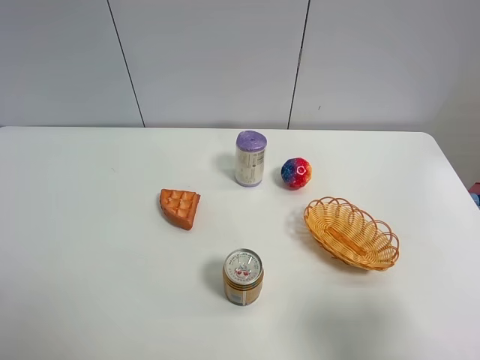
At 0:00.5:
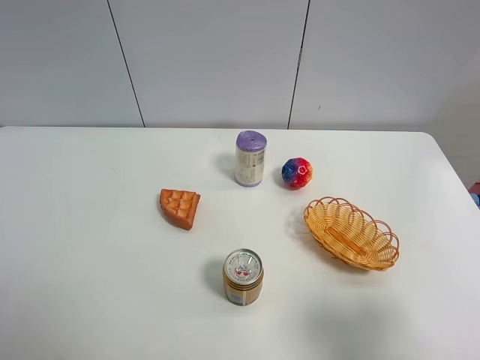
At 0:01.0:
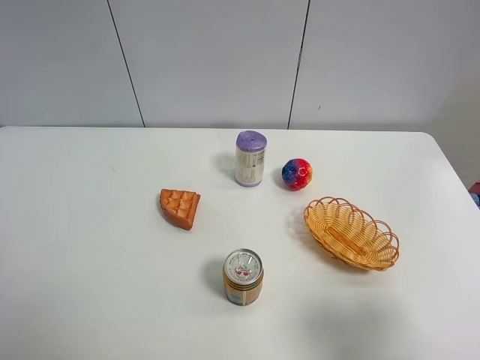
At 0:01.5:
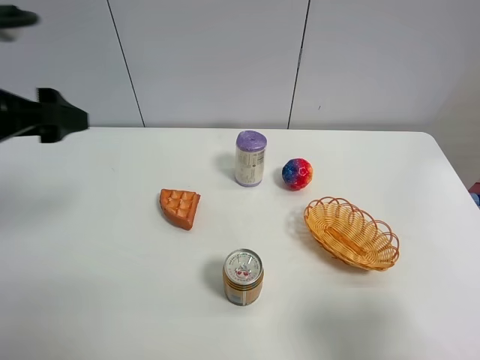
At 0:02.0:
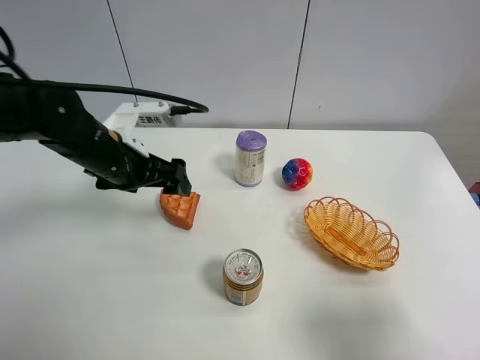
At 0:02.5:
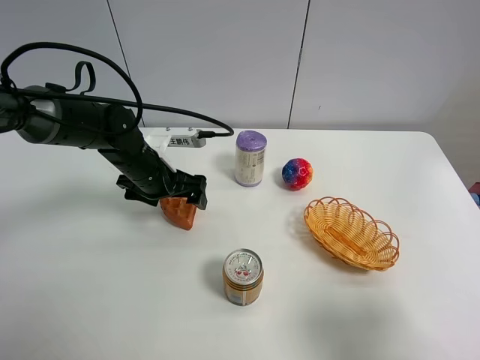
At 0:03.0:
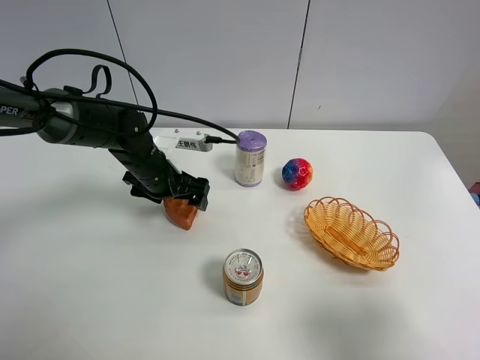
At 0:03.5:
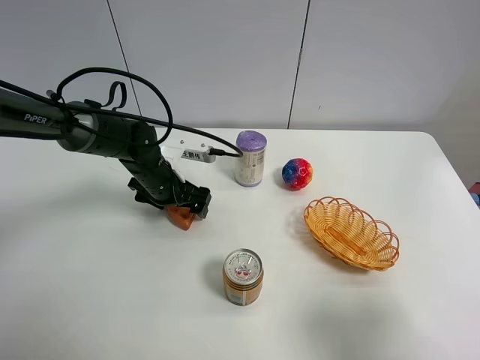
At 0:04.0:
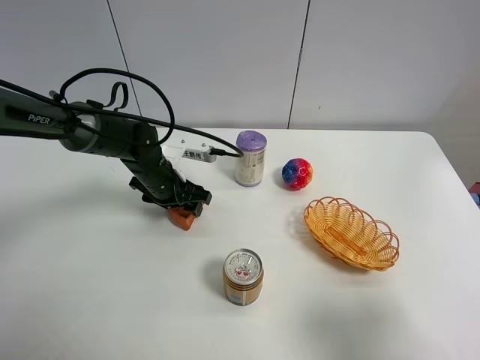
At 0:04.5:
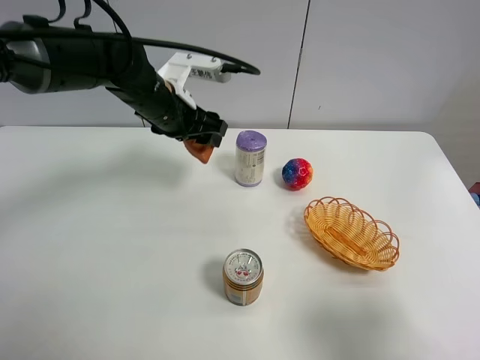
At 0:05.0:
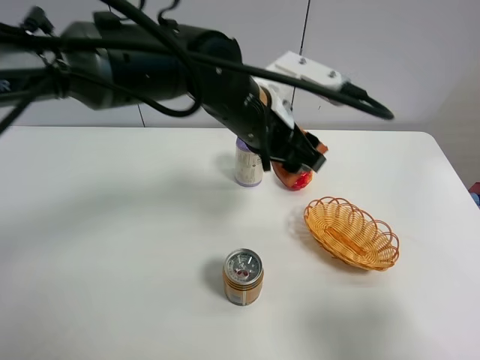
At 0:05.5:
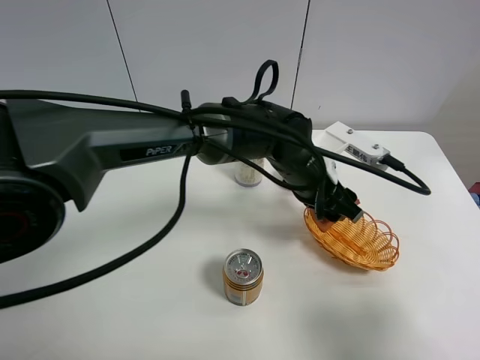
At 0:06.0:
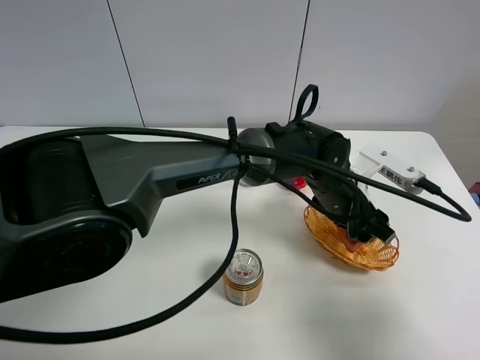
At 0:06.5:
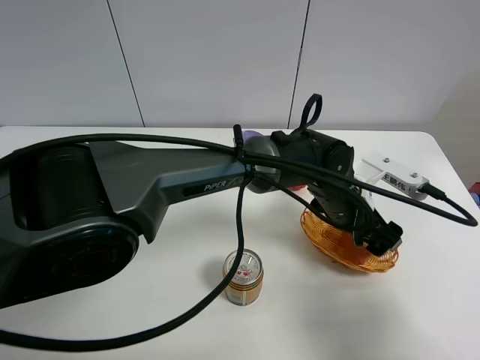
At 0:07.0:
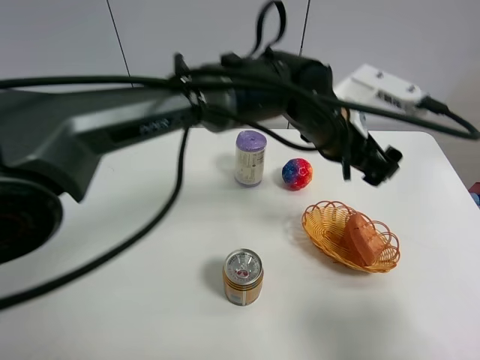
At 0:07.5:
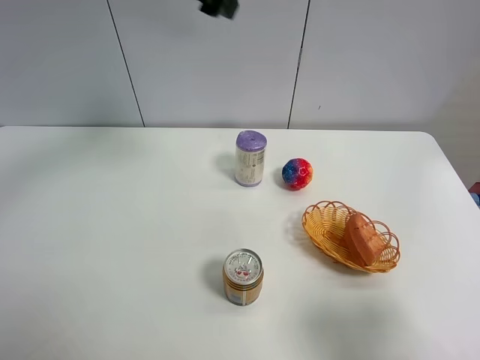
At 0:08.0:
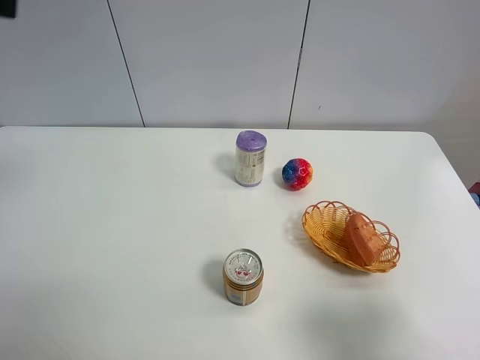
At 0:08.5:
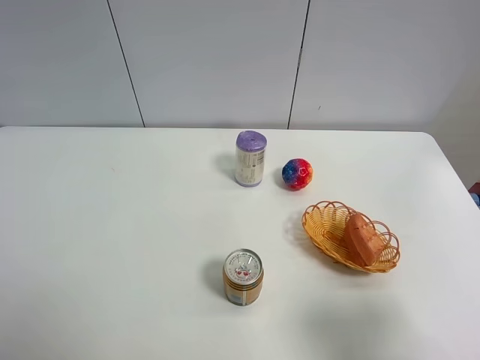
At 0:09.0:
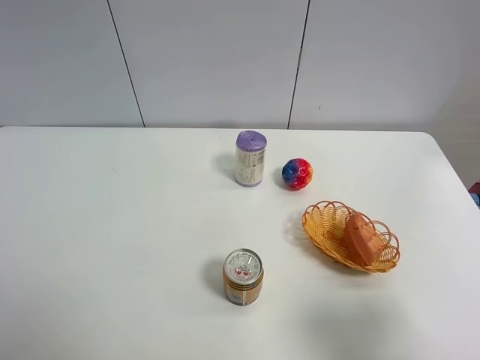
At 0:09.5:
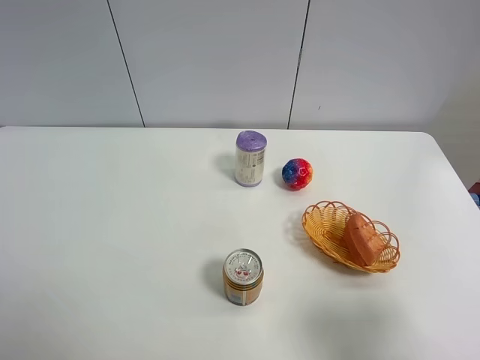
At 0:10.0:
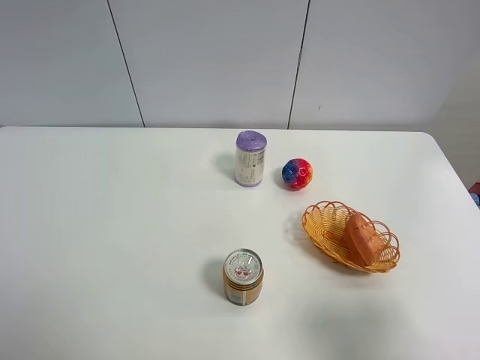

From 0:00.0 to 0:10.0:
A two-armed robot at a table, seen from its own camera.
Task of the whole recording: Put the bakery in the basket.
From 0:00.0 to 0:02.0: The left gripper shifts roughly 35 cm forward and to the right.
From 0:02.0 to 0:04.0: The left gripper is displaced downward and forward by roughly 10 cm, and closes up.
From 0:04.0 to 0:06.0: The left gripper goes approximately 30 cm to the right.
From 0:06.0 to 0:08.0: The left gripper shifts about 50 cm to the left and upward, and opens its fingers.
